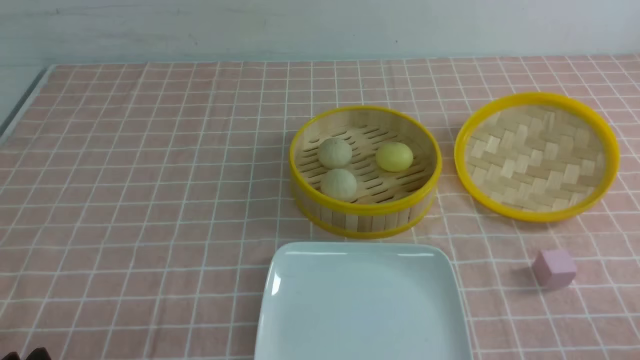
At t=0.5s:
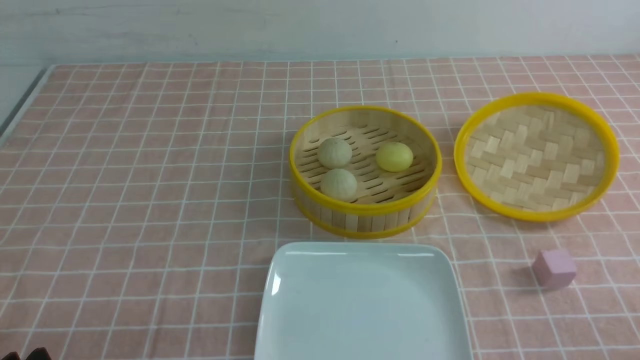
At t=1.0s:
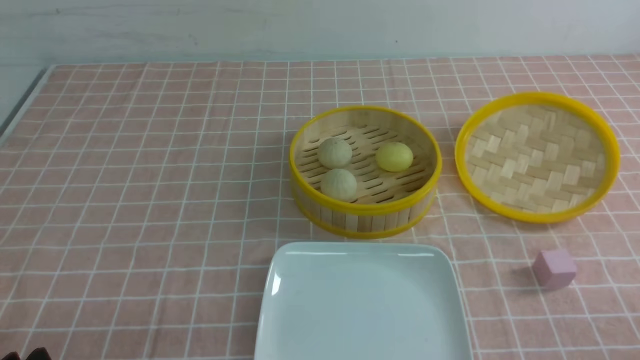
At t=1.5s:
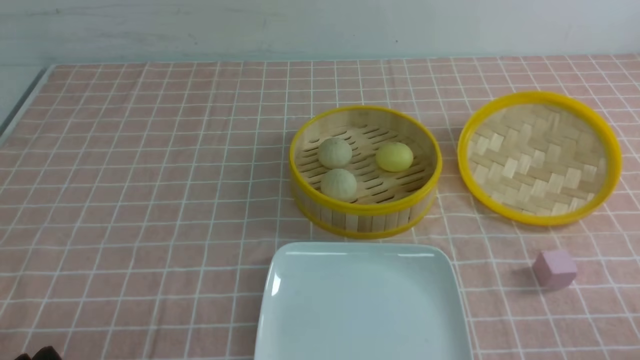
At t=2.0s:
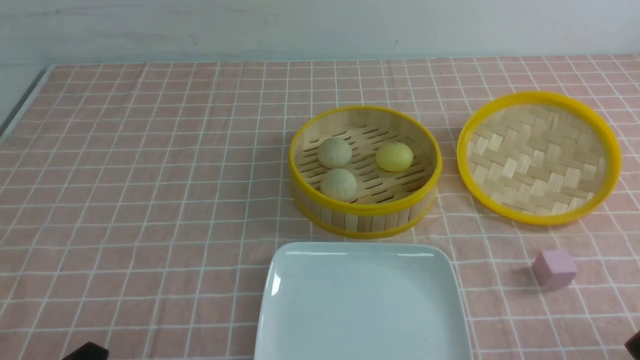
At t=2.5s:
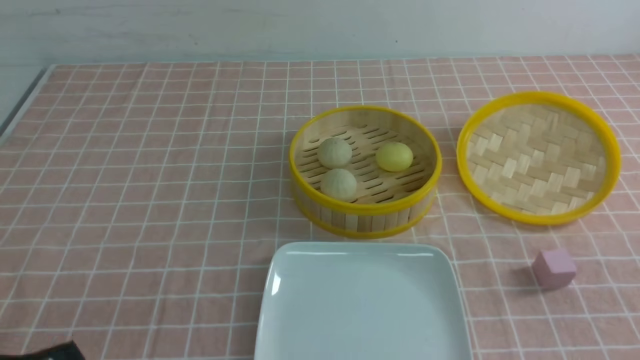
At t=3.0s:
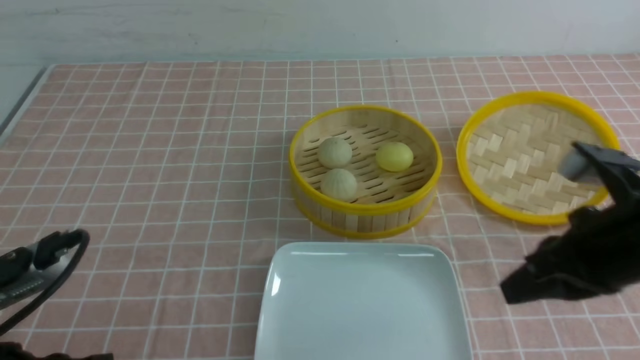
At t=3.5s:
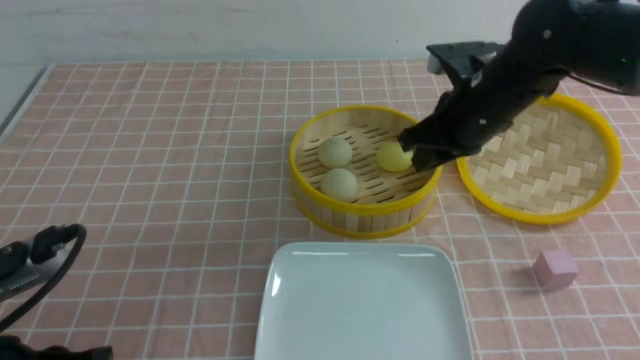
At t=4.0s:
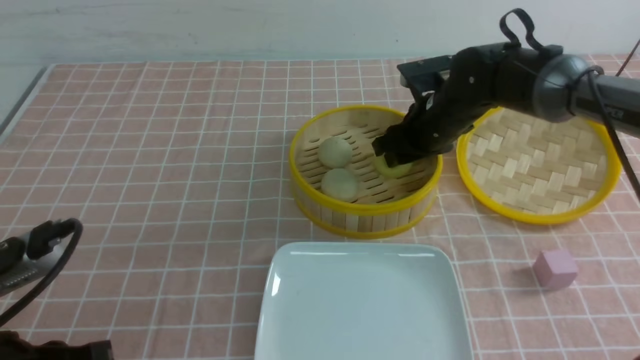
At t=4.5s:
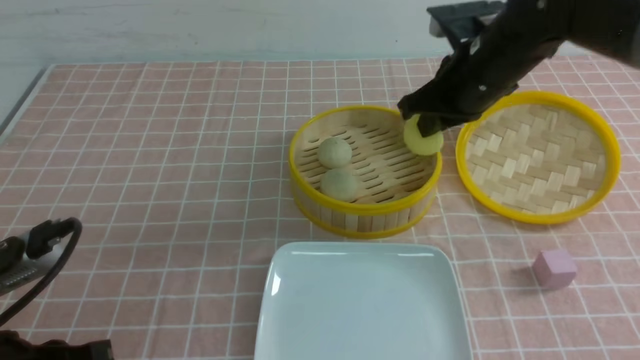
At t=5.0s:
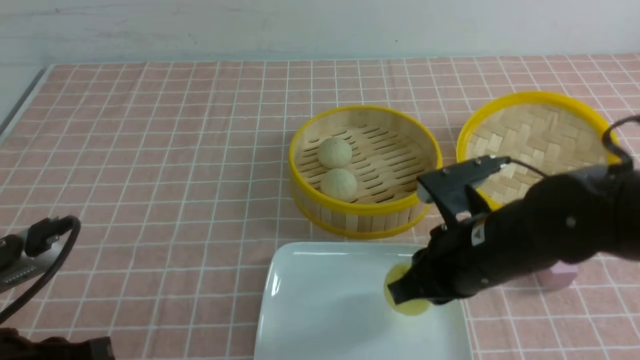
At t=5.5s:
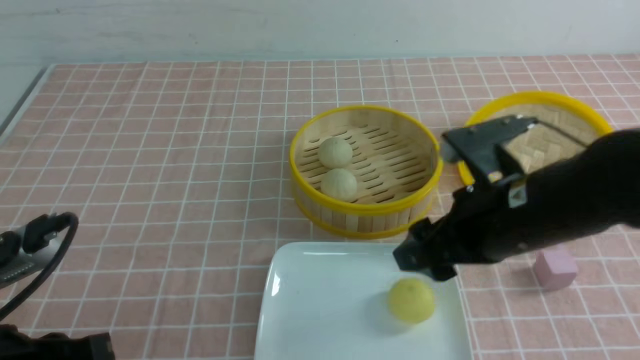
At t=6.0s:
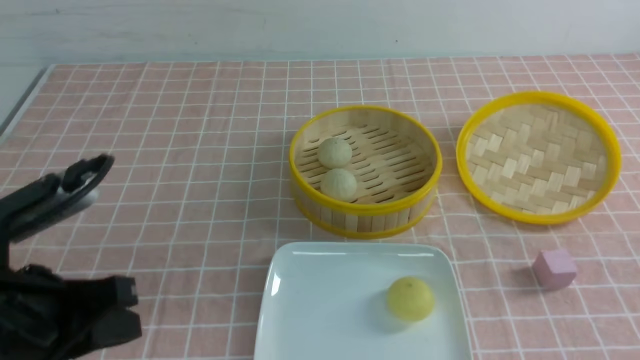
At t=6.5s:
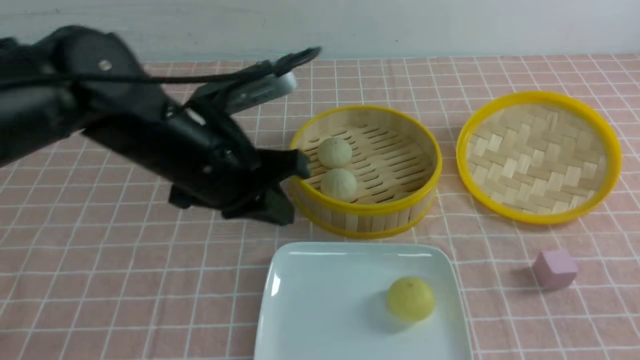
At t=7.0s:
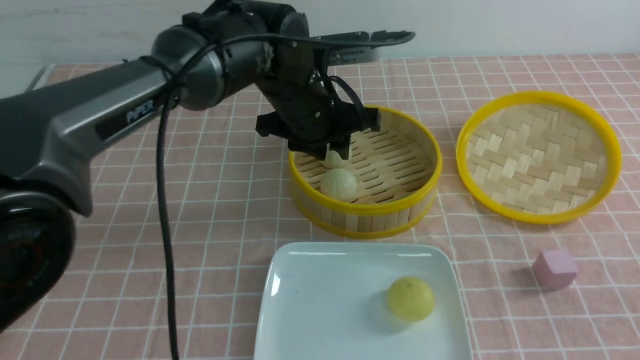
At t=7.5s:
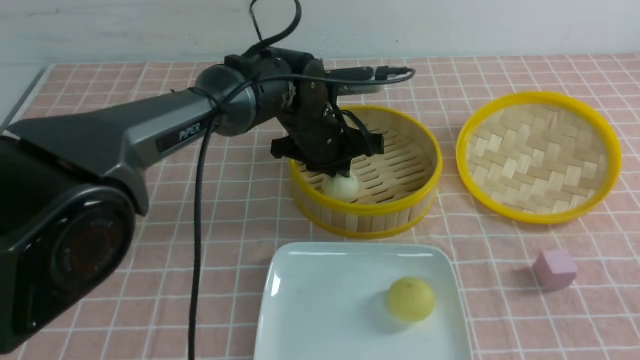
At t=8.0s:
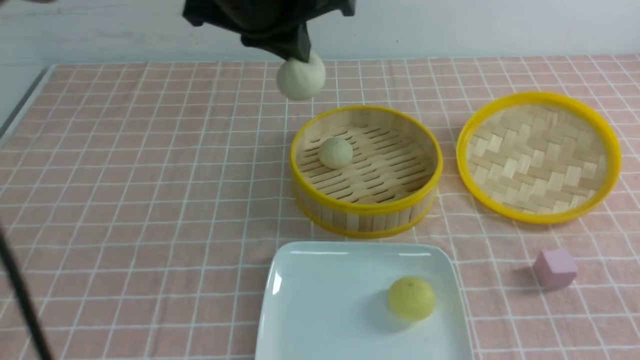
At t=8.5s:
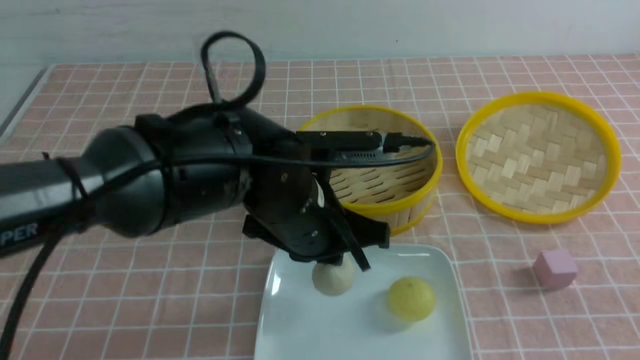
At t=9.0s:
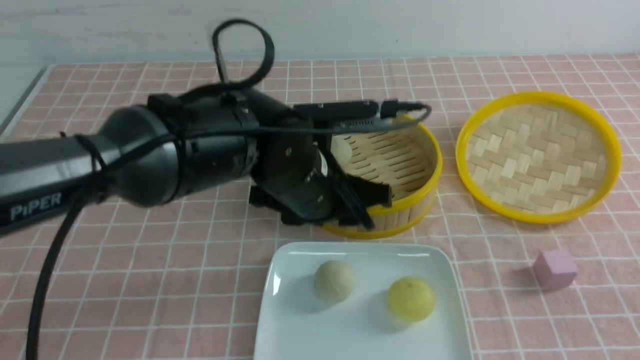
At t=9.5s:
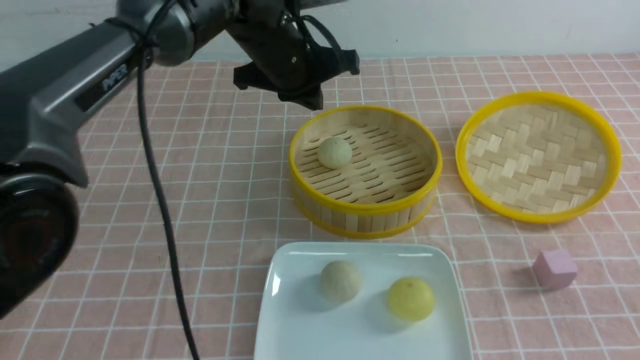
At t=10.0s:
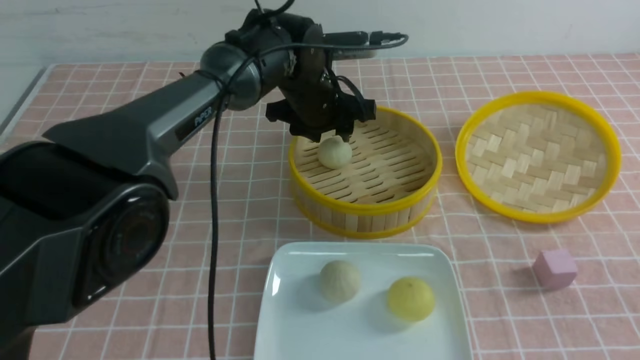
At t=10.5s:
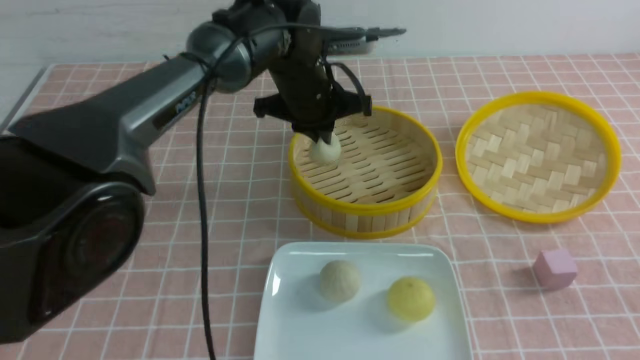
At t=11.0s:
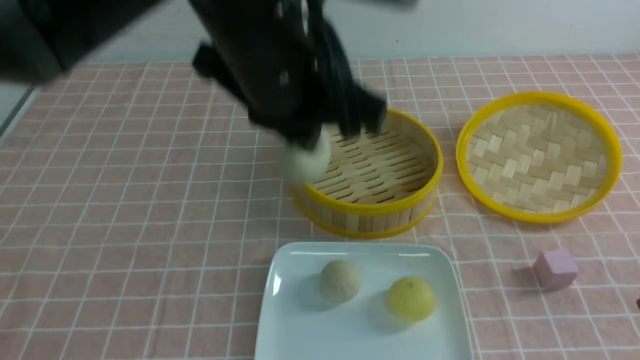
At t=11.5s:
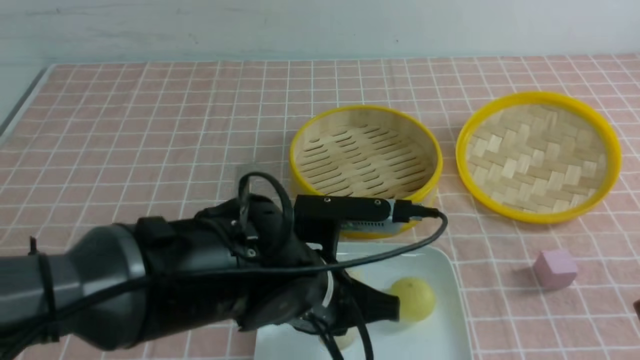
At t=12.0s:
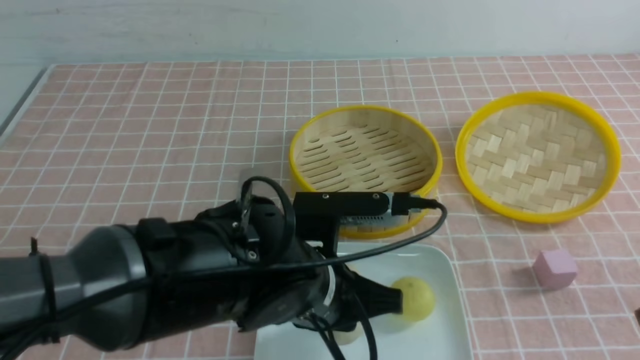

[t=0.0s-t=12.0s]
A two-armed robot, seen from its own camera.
Step, t=0.0s to t=4.0s: use the right arm to grab the steamed stuffed bun that is closest to it.
Step, t=4.5s to t=5.0s: use the right arm to put the steamed stuffed bun into the plate.
Step, t=5.5s to t=7.5s: use the left arm to grab the steamed stuffed bun that is closest to it.
Step, t=8.0s to t=8.5s: use the left arm to put the steamed stuffed bun into the plate.
Step, t=9.0s to t=10.0s: use the left arm to grab the steamed stuffed bun that is closest to it.
t=2.0s to t=4.0s: The left gripper travels upward and forward by roughly 10 cm, and closes its fingers. Meanwhile the right gripper travels forward and to the left by approximately 40 cm, and closes, then opens again.
t=4.0s to t=6.0s: The right gripper goes about 35 cm backward, and closes its fingers; the left gripper ends up roughly 5 cm from where it was.
t=6.0s to t=8.0s: The left gripper is displaced forward, to the right and upward by some 25 cm, and opens, then closes again.
t=8.0s to t=10.0s: The left gripper goes approximately 20 cm downward and forward, and opens its fingers.
t=10.0s to t=12.0s: The left gripper heads backward, covering about 25 cm, and closes up.

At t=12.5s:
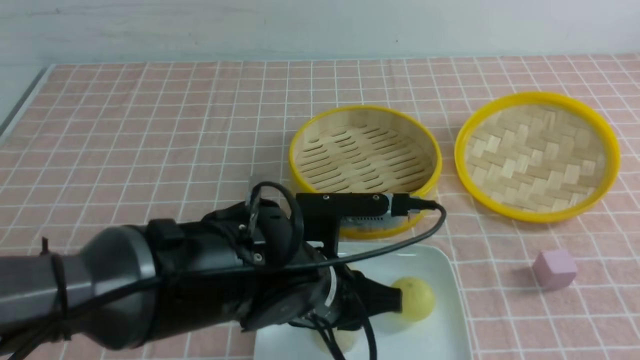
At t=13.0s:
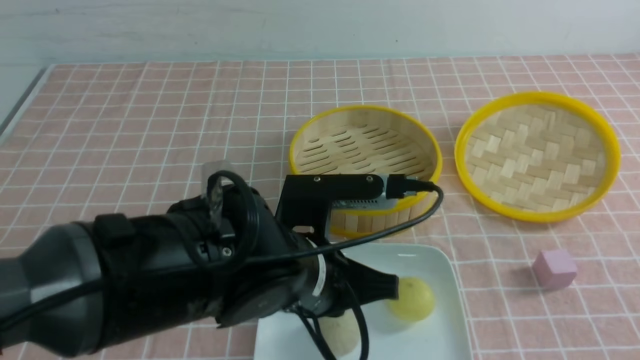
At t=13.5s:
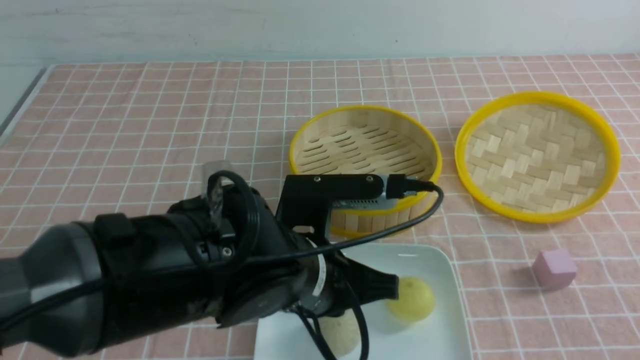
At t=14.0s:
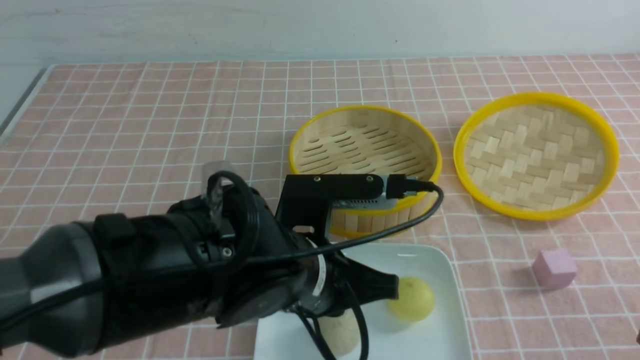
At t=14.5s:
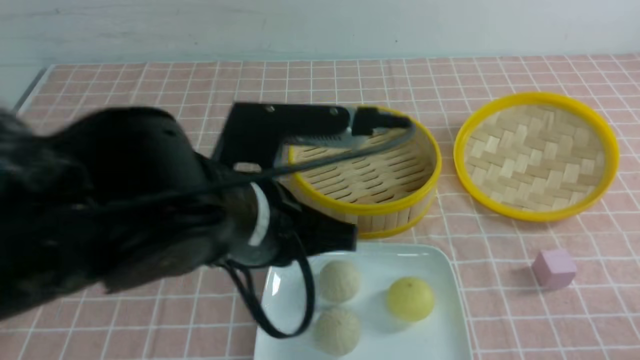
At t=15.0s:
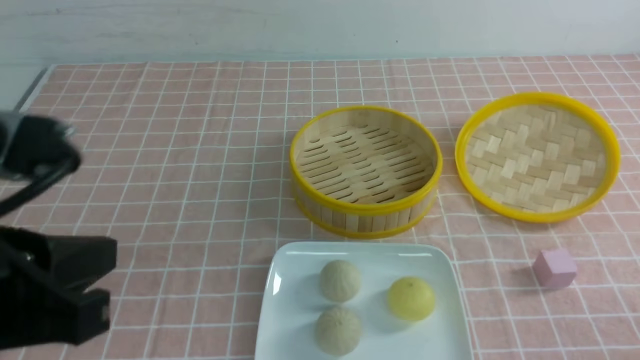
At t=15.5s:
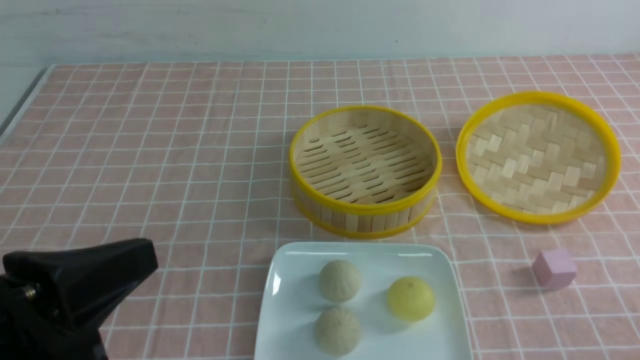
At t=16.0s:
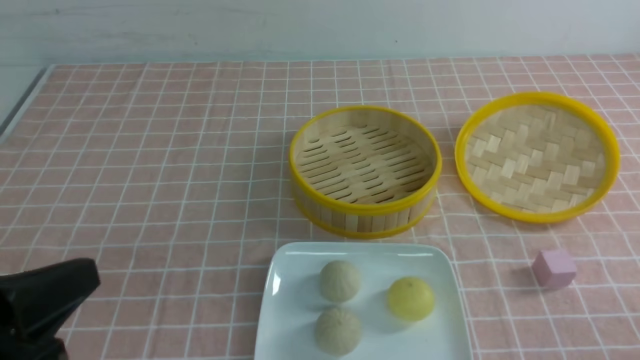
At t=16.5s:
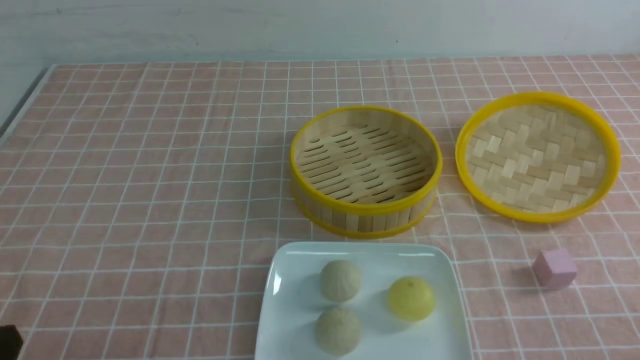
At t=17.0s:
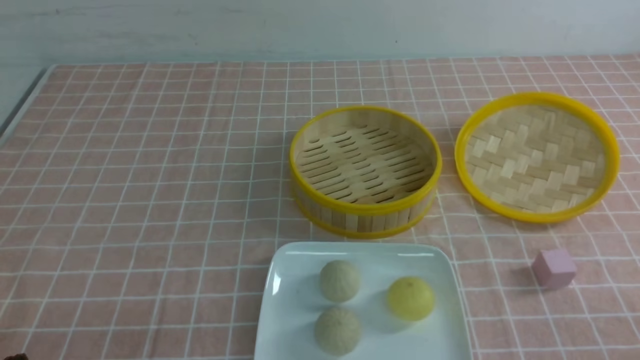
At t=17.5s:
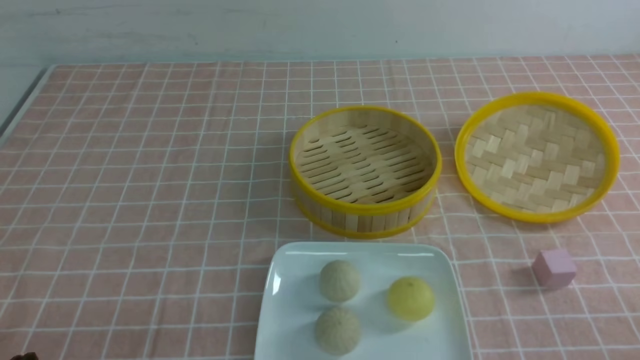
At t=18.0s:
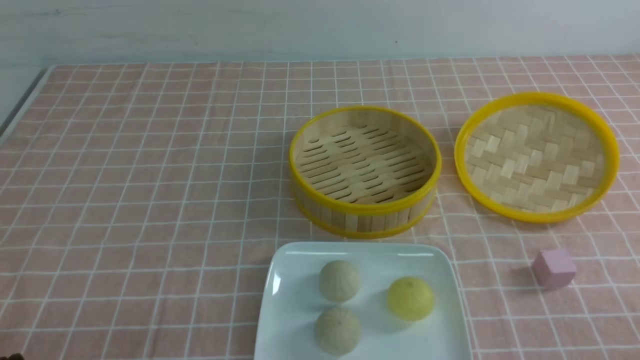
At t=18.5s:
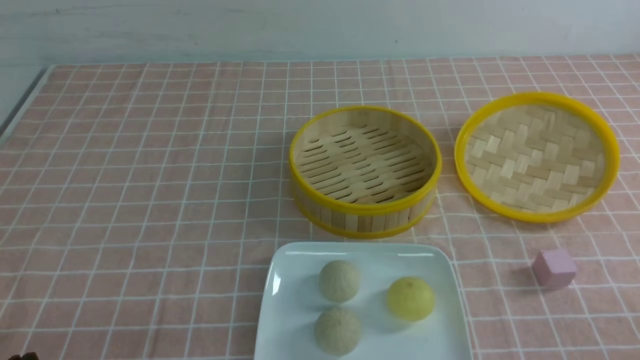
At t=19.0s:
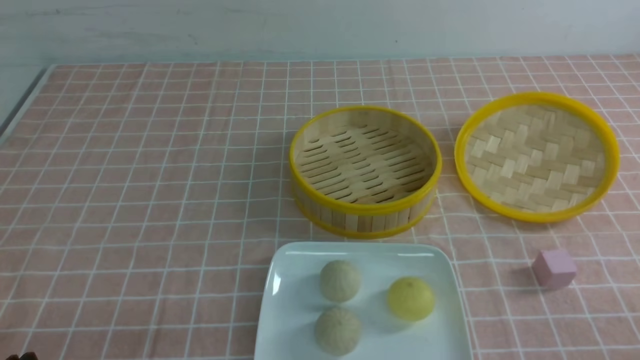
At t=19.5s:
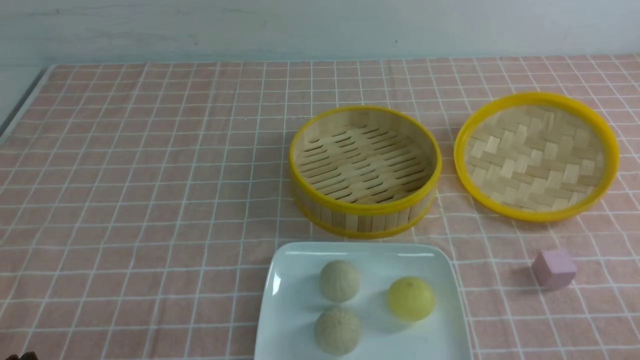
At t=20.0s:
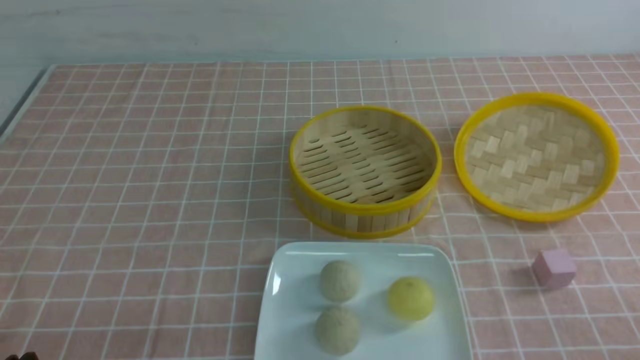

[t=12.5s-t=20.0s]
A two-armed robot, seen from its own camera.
t=12.5s to t=14.5s: The right gripper travels downward by about 20 cm, while the left gripper goes approximately 10 cm upward and to the left, and closes its fingers.
t=14.5s to t=16.5s: The left gripper travels to the left, backward and downward by about 25 cm.
t=18.0s to t=20.0s: The two grippers keep their place.
